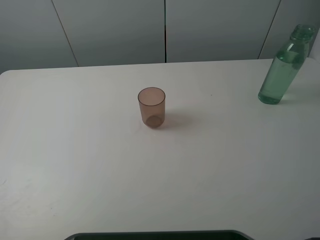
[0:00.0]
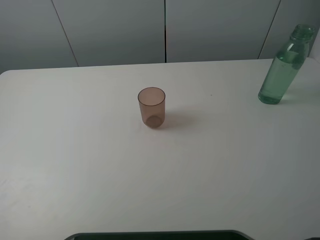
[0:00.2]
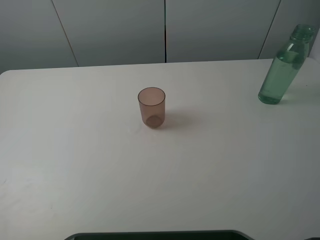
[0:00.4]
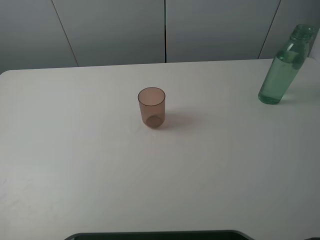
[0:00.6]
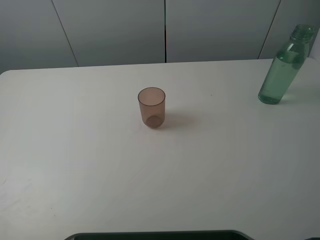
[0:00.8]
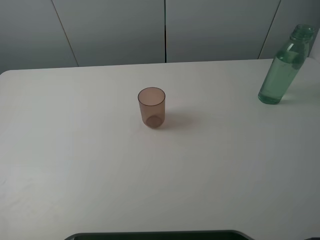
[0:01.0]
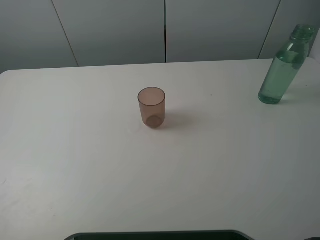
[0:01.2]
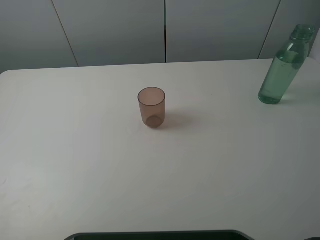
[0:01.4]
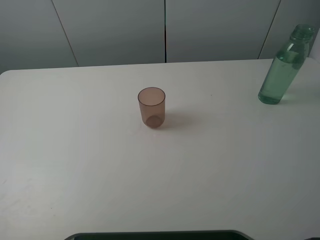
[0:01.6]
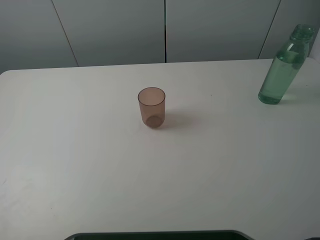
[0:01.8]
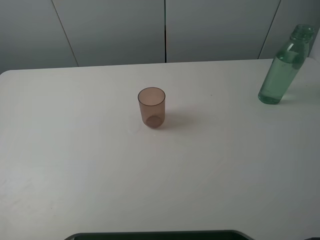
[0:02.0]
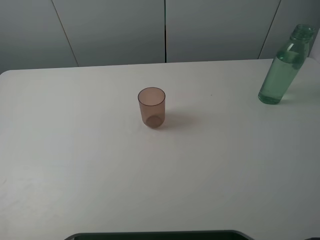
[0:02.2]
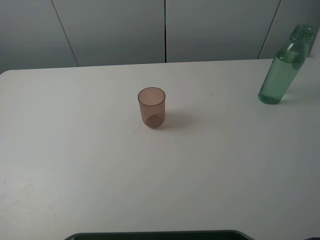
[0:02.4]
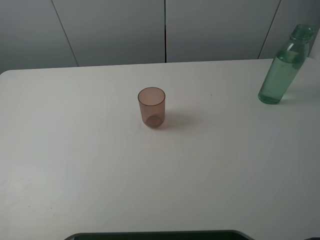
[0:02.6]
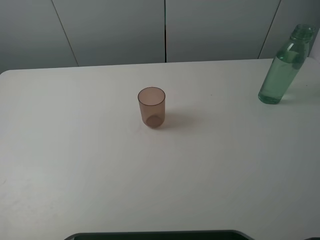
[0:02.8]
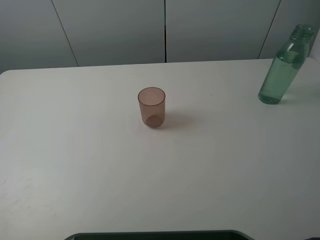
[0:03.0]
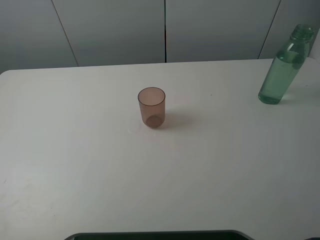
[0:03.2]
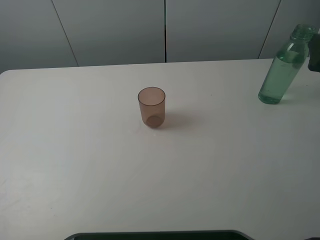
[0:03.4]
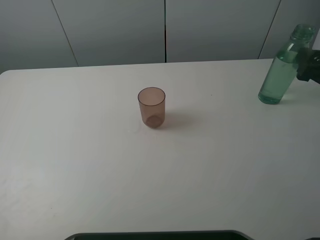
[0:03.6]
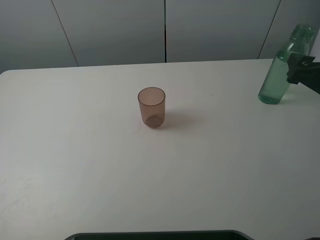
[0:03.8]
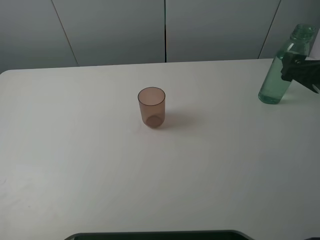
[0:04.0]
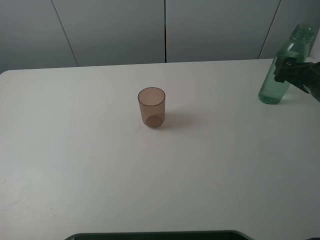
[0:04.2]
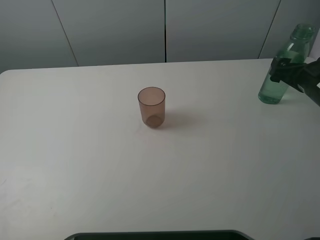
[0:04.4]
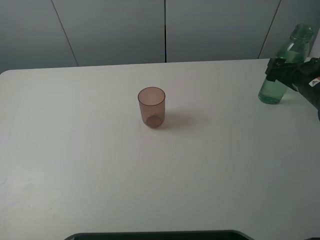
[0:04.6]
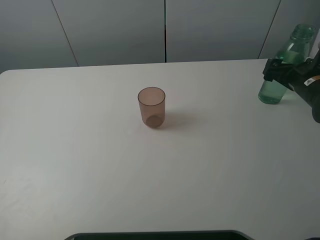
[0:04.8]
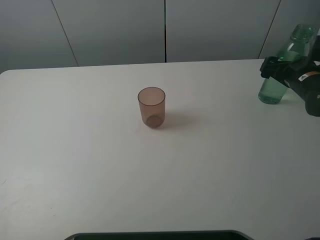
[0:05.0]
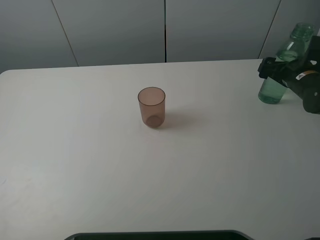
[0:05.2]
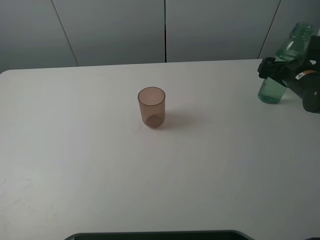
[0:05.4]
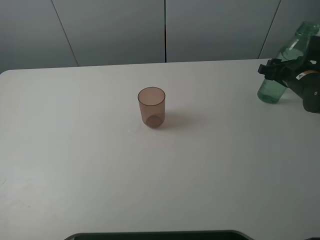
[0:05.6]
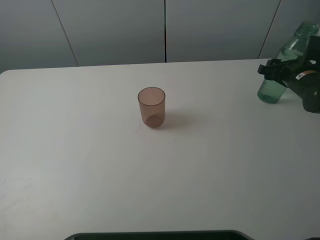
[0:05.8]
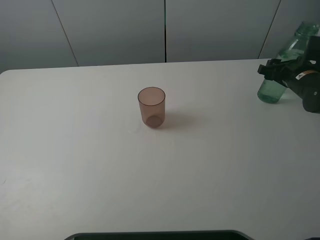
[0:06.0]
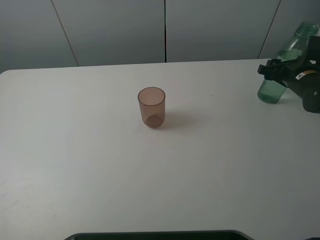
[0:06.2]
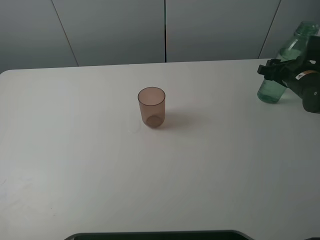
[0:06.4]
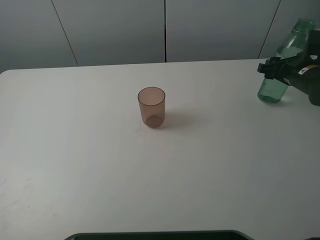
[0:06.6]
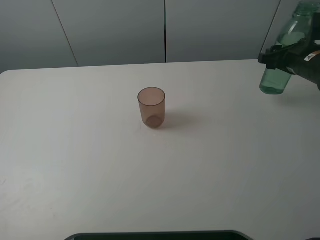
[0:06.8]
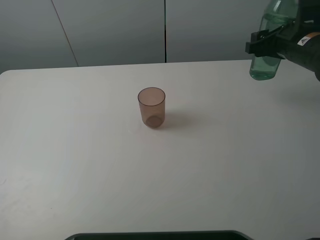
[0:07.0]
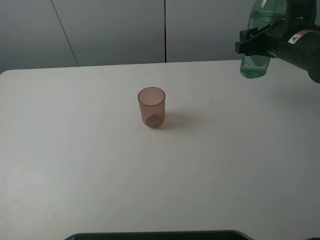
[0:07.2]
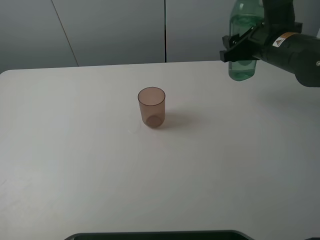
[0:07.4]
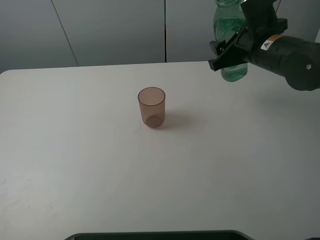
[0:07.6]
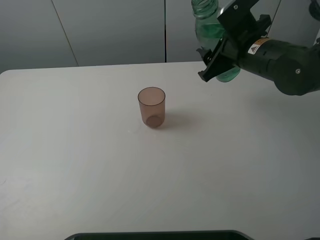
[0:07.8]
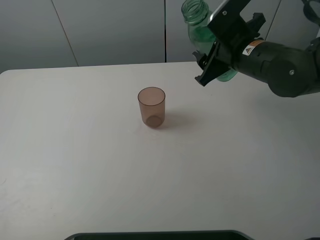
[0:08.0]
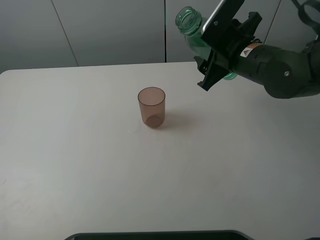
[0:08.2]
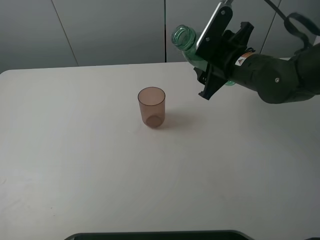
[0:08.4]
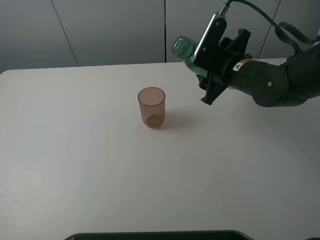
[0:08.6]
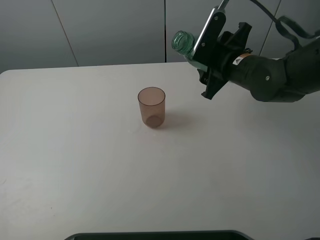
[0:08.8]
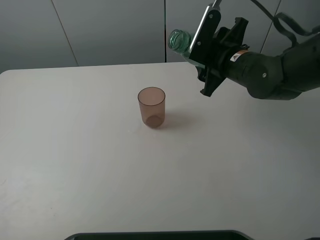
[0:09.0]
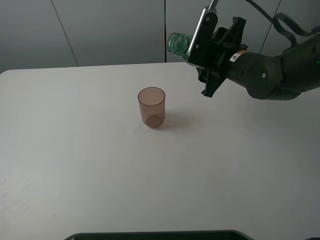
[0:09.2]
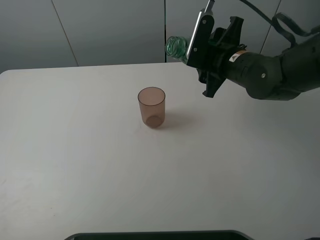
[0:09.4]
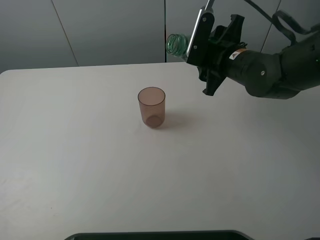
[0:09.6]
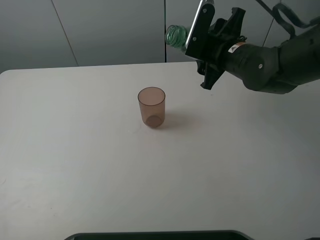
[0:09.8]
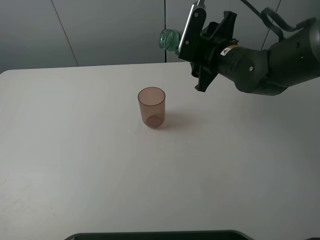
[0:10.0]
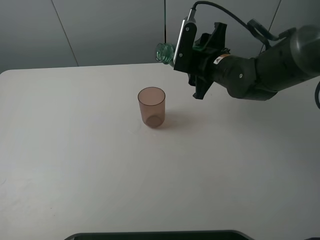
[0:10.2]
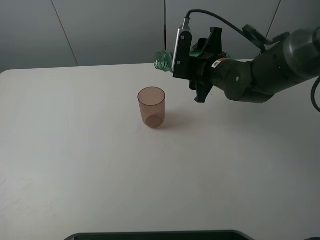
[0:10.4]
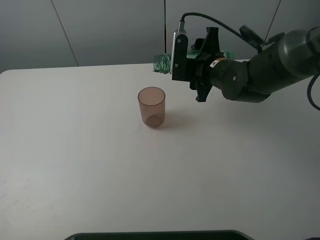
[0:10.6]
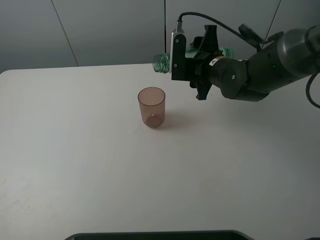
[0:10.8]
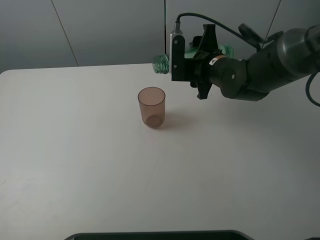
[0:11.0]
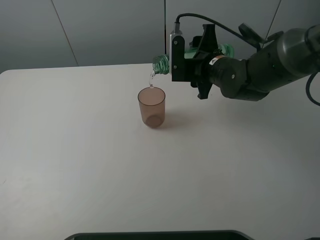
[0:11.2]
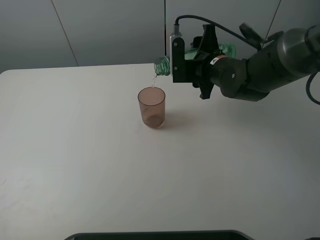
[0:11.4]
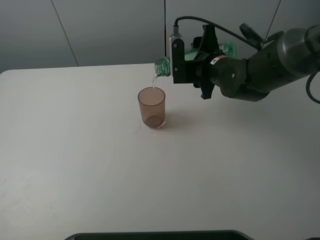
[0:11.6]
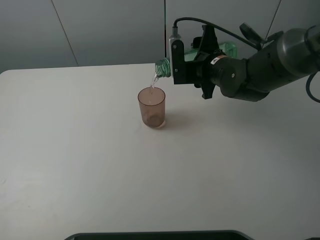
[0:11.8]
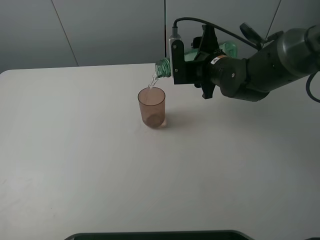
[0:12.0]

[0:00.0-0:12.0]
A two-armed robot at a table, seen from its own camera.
Task of the whole recording: pick up the bottle filled with water and pour it into the pink cup.
0:00.0 to 0:01.6: The two grippers keep their place.
0:03.0 to 0:04.4: The right gripper shifts roughly 20 cm downward and forward.
0:04.4 to 0:06.0: The right gripper shifts approximately 5 cm forward, and closes up.
0:06.0 to 0:07.6: The right gripper is displaced to the left and upward by approximately 15 cm.
0:09.0 to 0:10.4: There are only small adjustments of the grippers.
0:10.4 to 0:12.0: The grippers stay close to where they were, moving slightly.

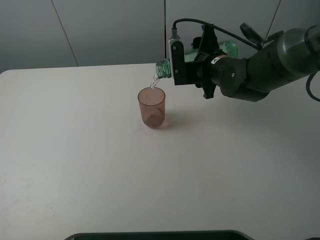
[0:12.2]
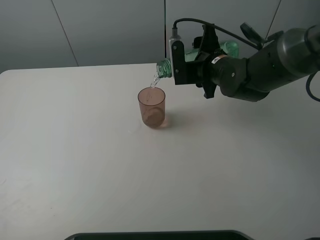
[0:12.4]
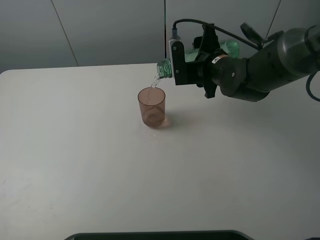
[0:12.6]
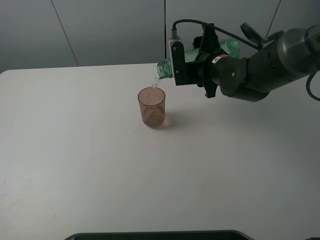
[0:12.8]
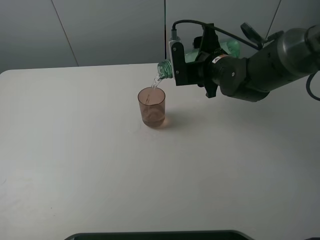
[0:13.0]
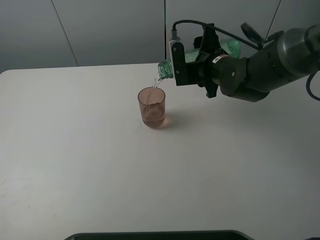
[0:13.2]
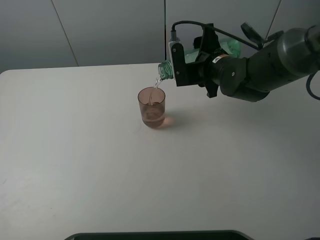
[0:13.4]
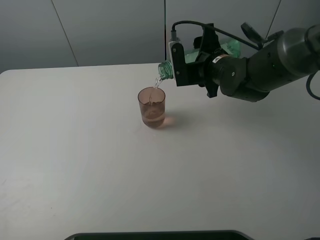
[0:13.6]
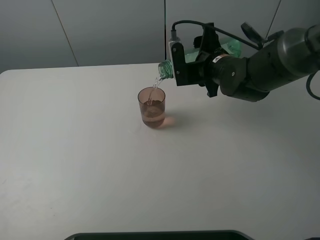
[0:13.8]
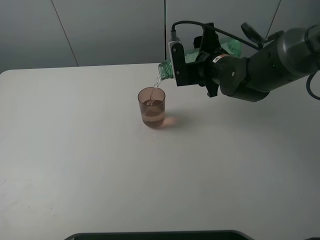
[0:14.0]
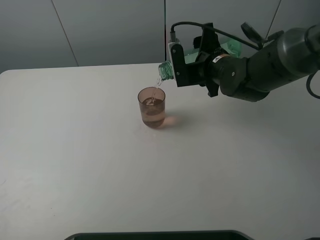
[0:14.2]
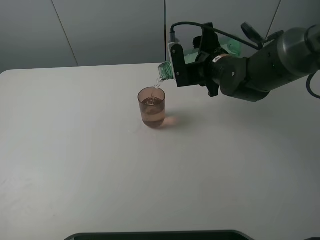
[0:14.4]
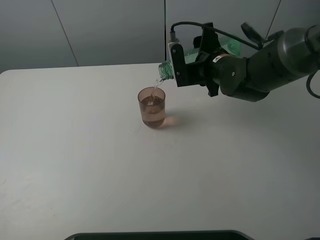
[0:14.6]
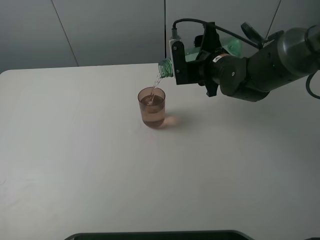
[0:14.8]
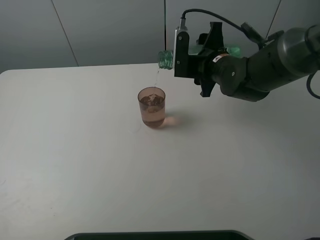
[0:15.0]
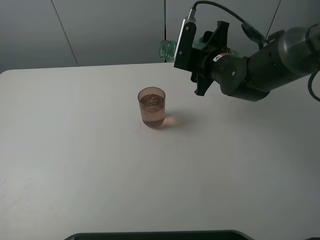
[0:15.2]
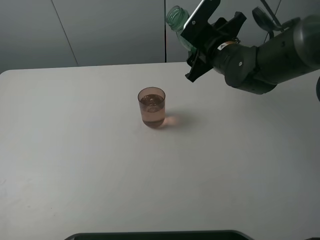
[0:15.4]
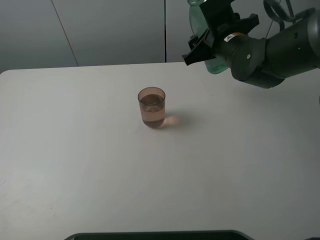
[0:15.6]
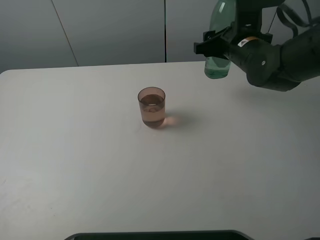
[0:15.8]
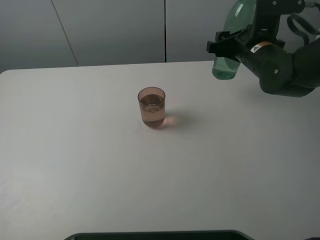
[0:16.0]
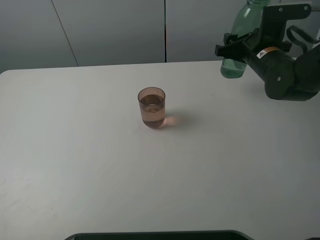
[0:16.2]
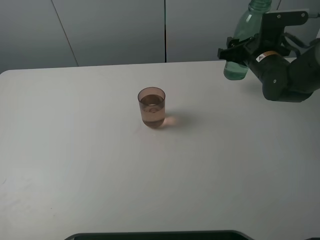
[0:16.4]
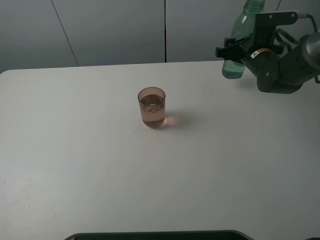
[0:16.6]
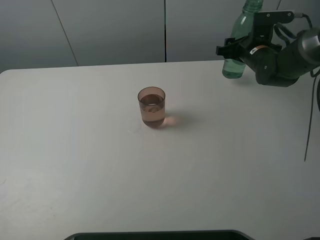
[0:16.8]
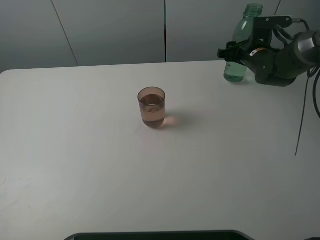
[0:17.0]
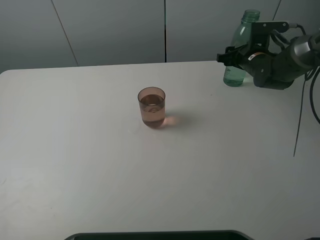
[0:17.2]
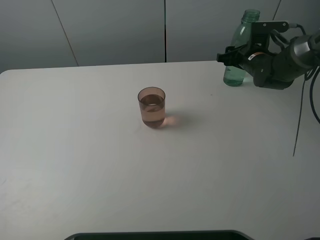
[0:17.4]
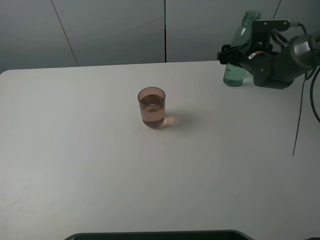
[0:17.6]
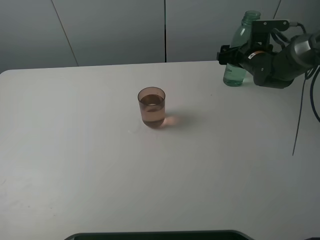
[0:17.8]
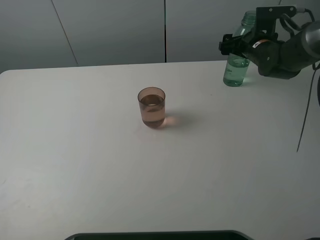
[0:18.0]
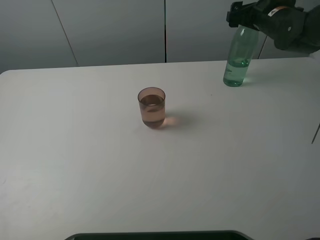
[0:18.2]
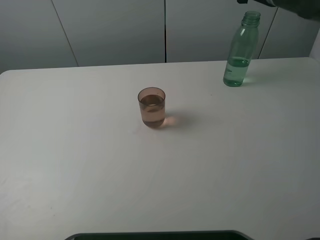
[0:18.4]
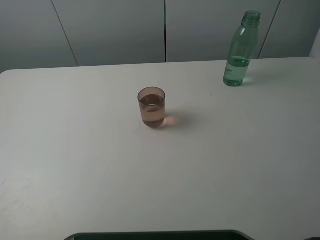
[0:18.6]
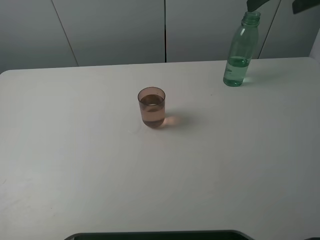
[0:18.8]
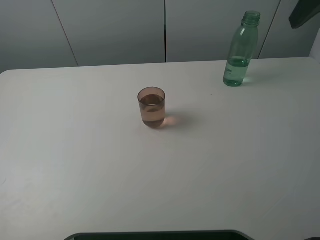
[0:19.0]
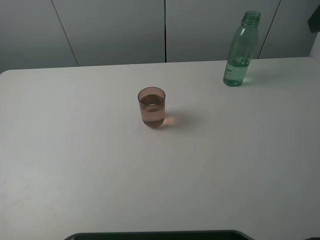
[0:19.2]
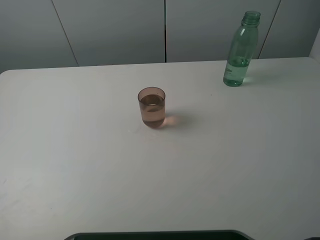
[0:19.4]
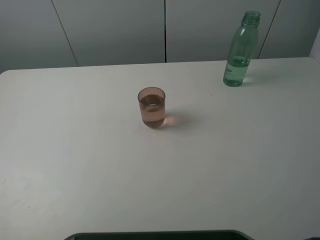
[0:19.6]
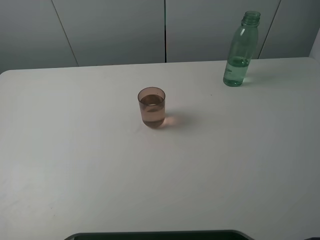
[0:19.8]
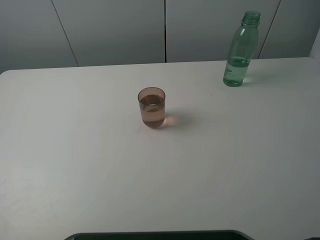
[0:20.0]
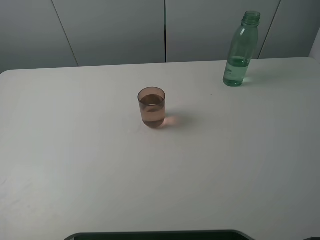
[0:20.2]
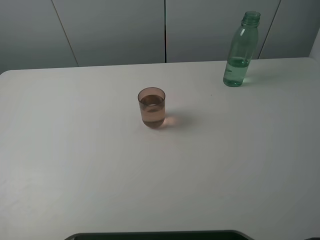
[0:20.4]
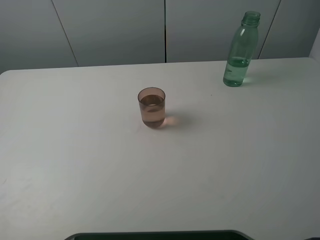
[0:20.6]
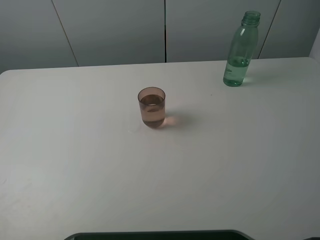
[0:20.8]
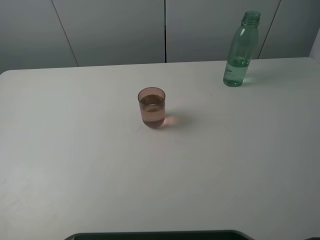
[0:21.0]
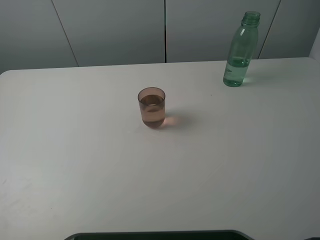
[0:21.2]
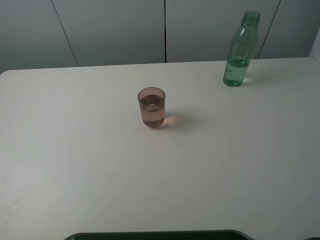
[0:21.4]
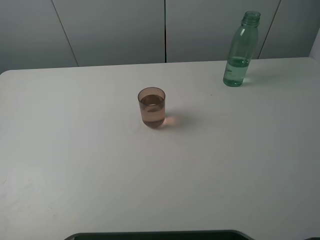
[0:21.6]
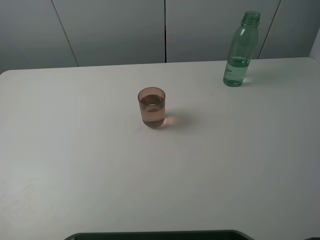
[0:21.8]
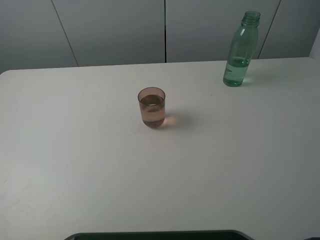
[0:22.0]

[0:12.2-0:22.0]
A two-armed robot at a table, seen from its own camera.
Task of the whole recording: pick up the bottle filled with water and pour it into the pink cup.
Step, 0:12.2 to 0:15.2: Pour water from green bottle to pink cup with the right gripper.
Step, 0:15.4 to 0:18.0: Place the green bottle with the right gripper.
0:12.2 to 0:13.6: Both grippers stay put.
0:13.6 to 0:15.0: The grippers stay close to where they were, moving slightly.
0:15.0 to 0:16.4: The right gripper shifts approximately 10 cm to the right.
0:16.4 to 0:17.8: The right gripper is displaced forward by about 5 cm, and opens up.
0:17.8 to 0:19.2: The right gripper travels upward and backward by some 35 cm.
